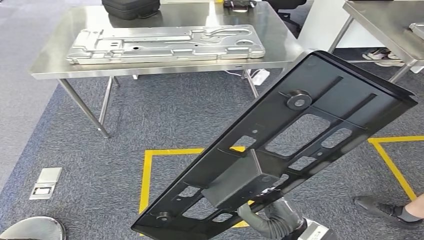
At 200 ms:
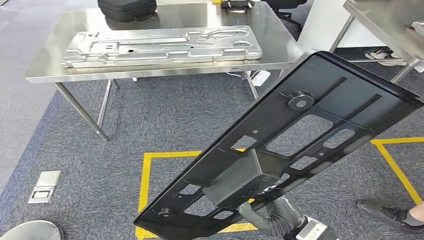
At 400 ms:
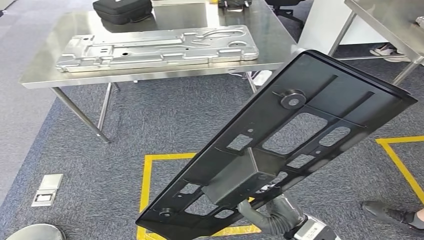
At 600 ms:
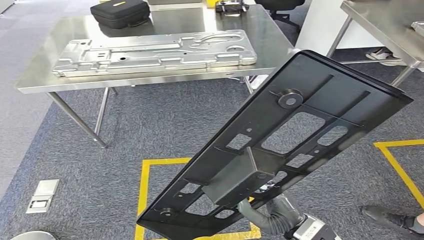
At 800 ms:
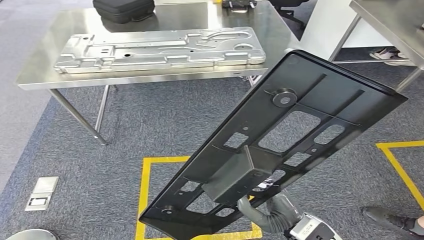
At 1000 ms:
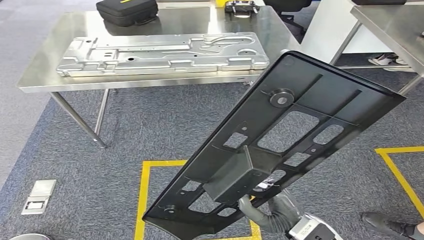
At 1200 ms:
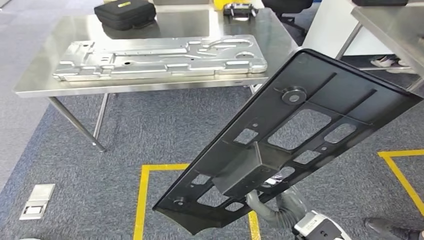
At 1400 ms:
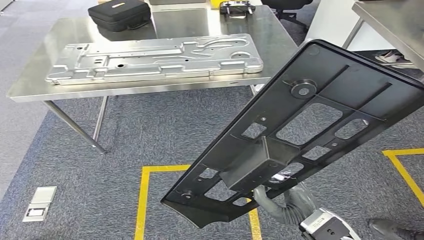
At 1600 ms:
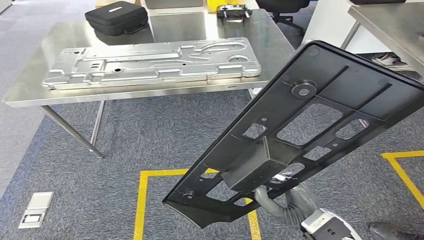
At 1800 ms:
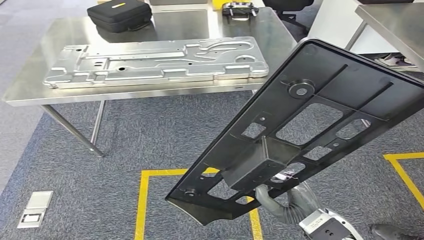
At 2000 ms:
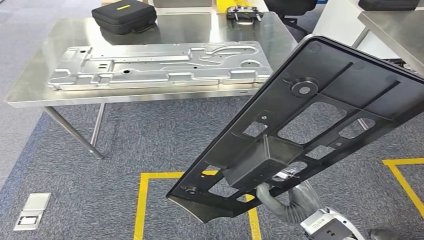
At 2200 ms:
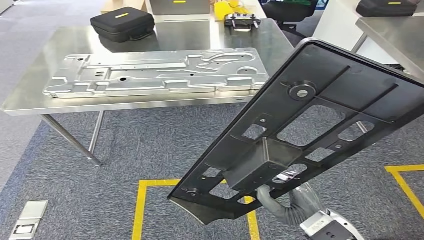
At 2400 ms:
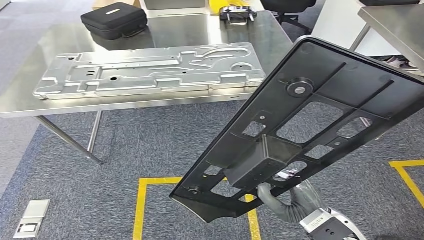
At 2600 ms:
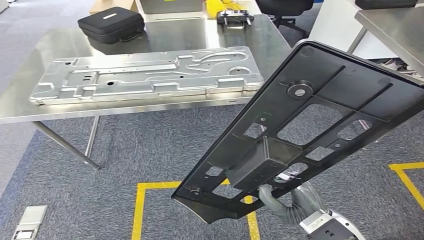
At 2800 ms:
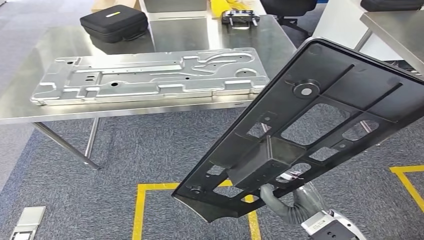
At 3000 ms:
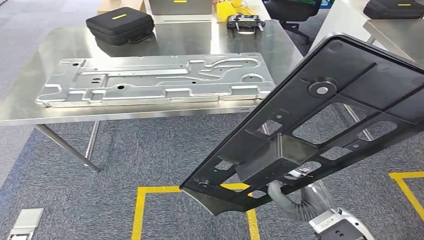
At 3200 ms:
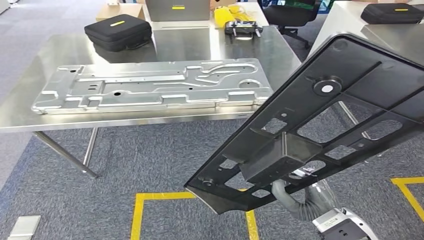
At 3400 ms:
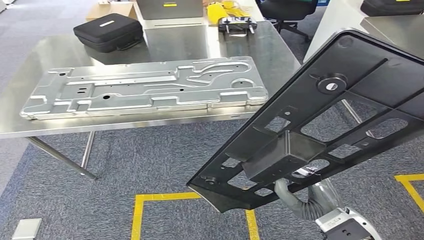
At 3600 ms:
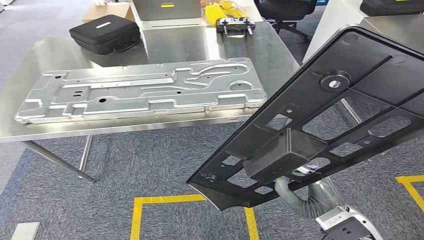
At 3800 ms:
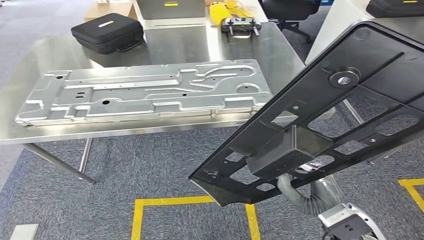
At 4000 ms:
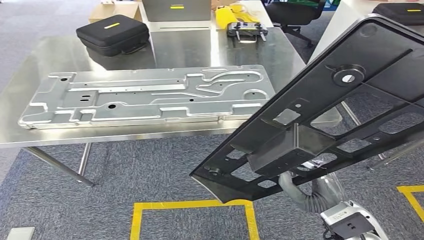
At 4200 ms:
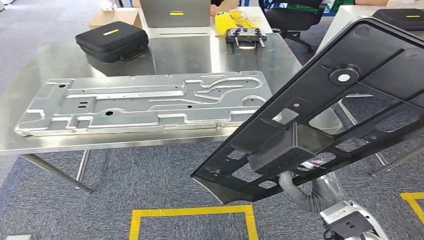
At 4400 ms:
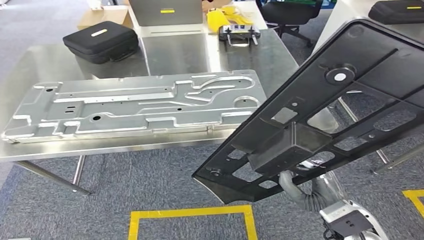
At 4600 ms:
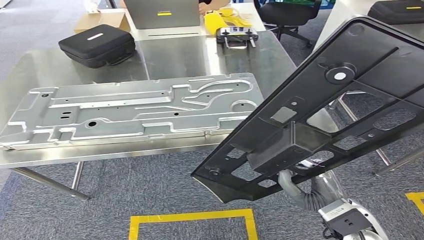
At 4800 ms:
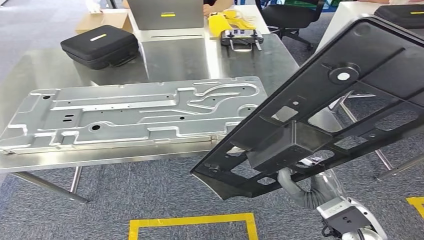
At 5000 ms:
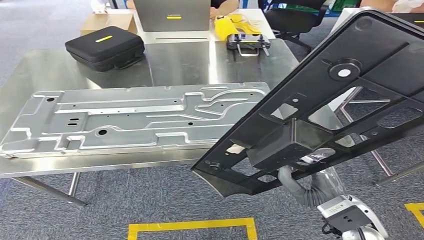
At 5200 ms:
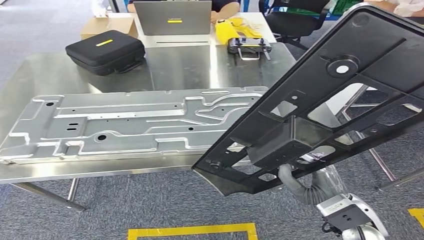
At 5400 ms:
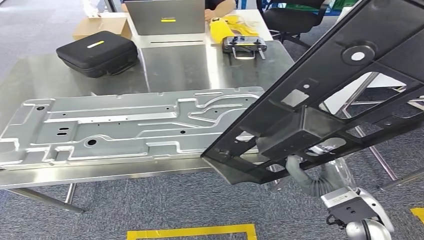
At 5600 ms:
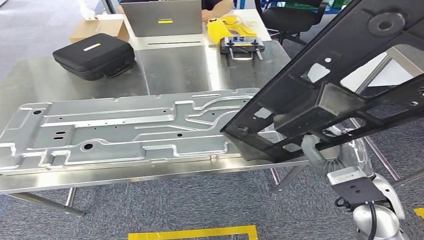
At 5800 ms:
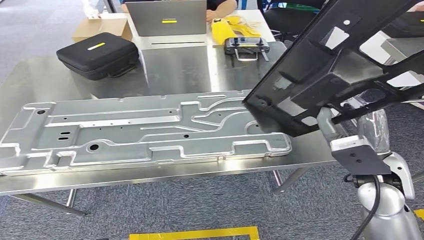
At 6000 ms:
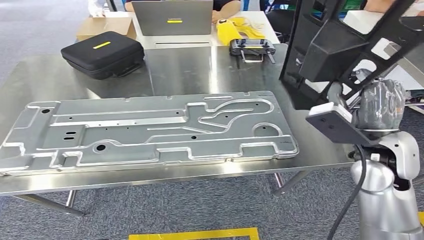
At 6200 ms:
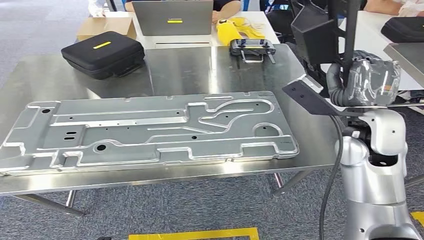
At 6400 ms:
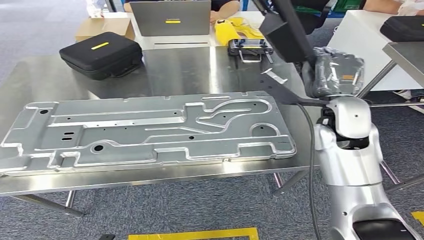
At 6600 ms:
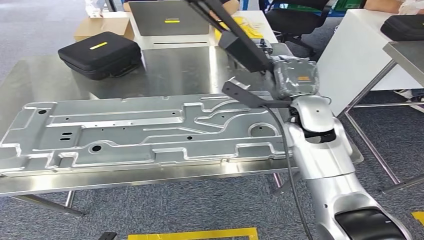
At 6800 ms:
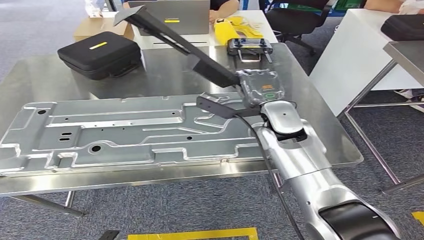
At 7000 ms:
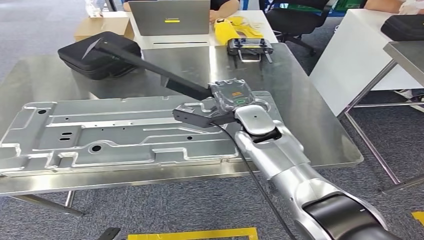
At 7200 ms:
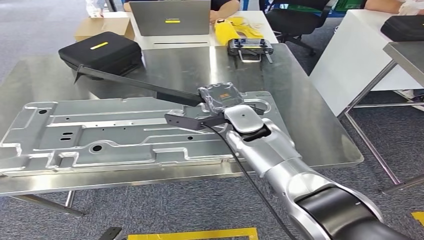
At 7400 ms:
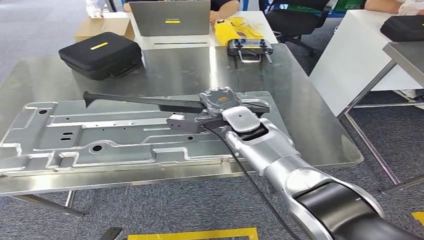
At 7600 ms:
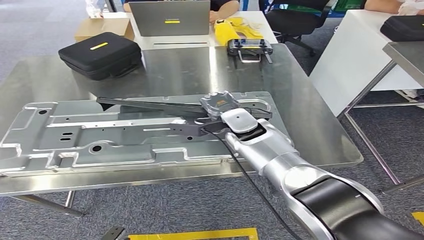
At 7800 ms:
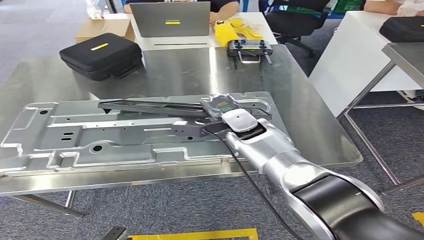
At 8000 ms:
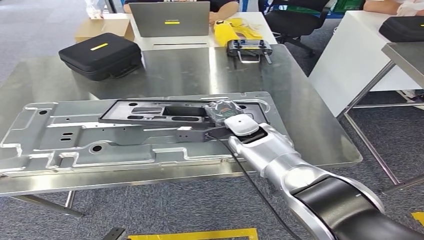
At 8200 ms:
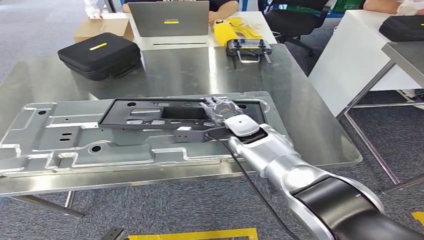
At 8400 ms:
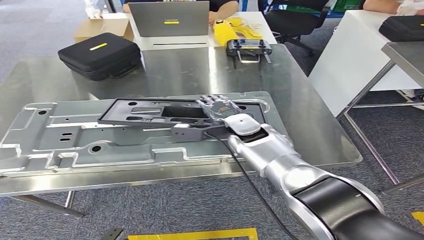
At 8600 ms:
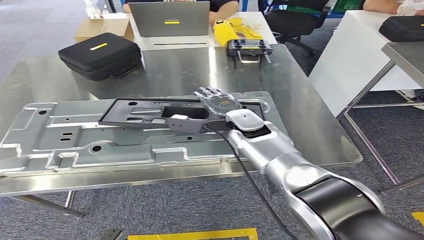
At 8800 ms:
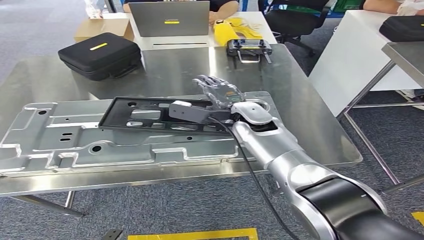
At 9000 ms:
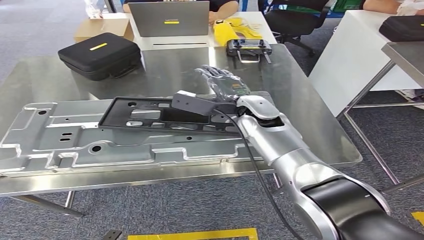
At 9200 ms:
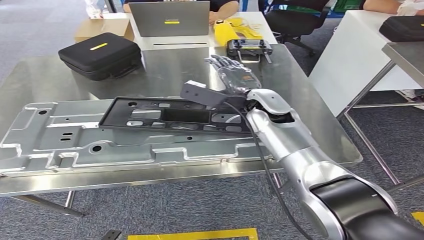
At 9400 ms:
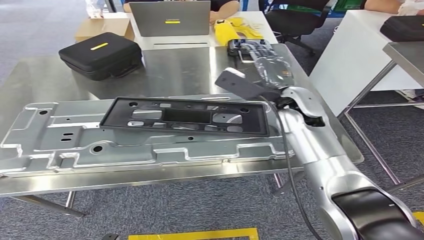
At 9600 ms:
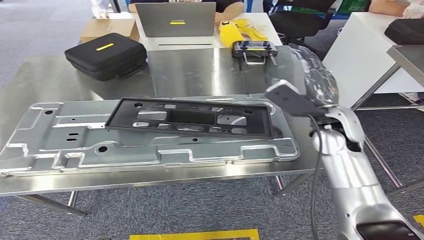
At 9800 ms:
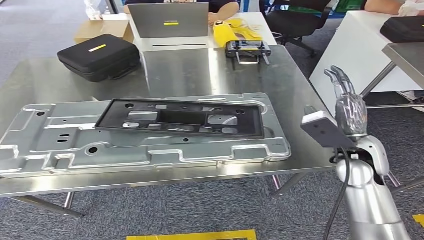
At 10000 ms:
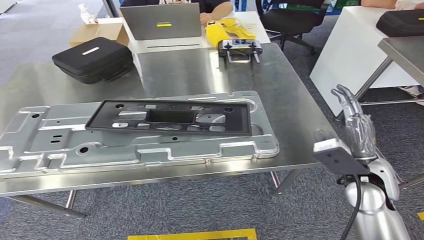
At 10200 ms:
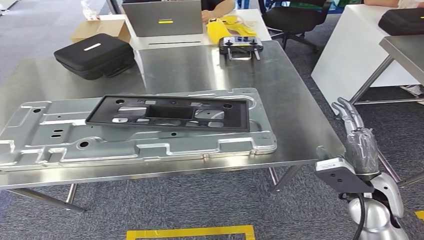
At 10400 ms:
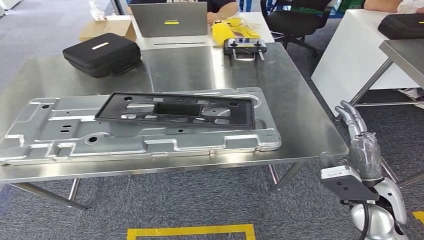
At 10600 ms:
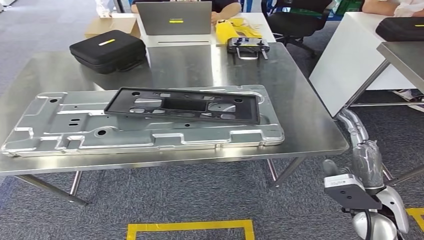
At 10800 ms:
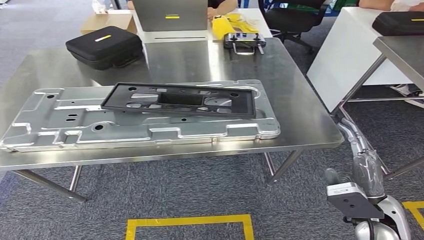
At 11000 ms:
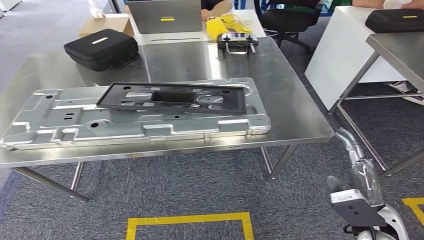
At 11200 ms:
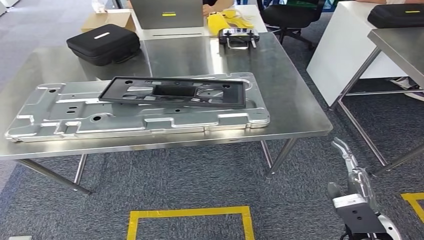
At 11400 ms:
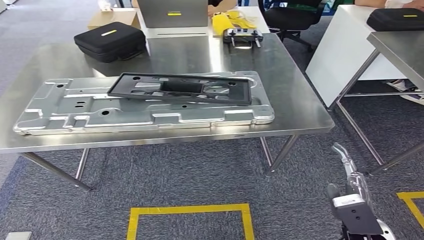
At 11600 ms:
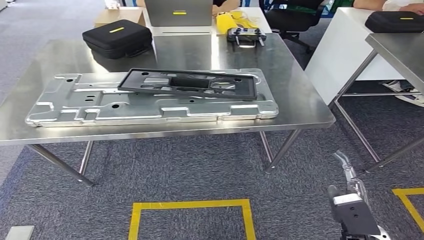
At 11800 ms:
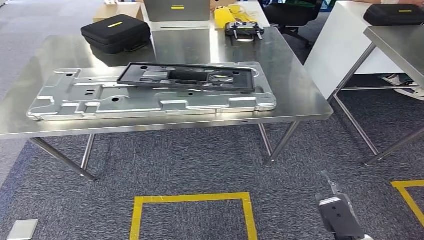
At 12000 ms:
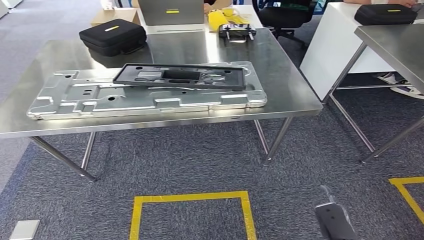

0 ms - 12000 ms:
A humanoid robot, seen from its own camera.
Step, 0 ms - 4800 ms: Move the large material to the workbench.
Step, 5000 ms - 8400 ms: Insert the large material into the corresponding slot on the workbench.

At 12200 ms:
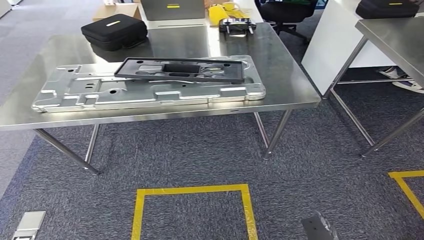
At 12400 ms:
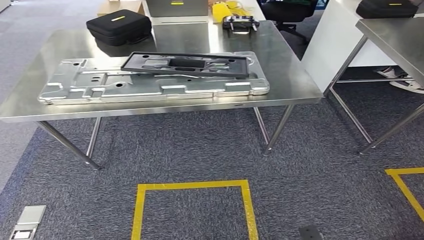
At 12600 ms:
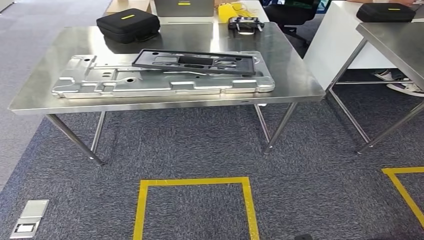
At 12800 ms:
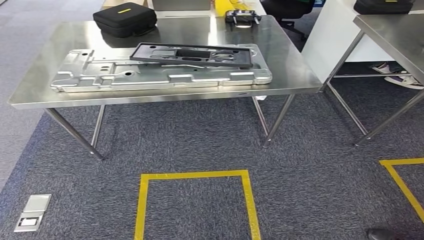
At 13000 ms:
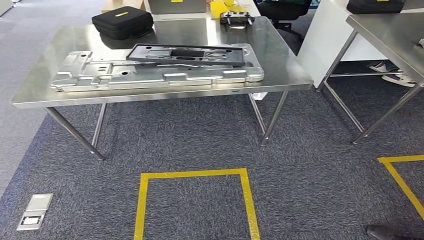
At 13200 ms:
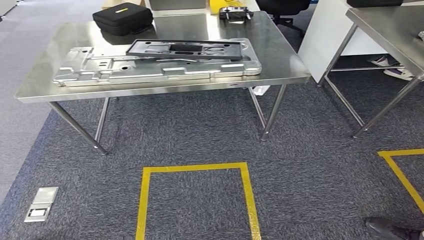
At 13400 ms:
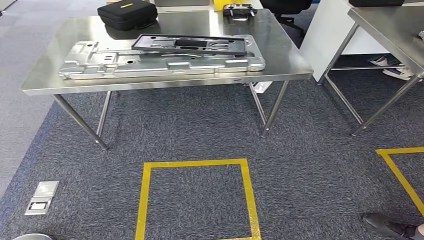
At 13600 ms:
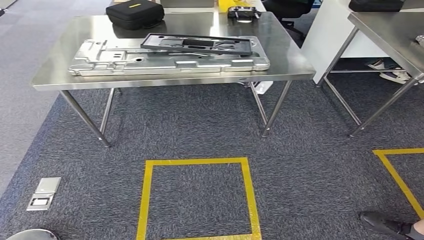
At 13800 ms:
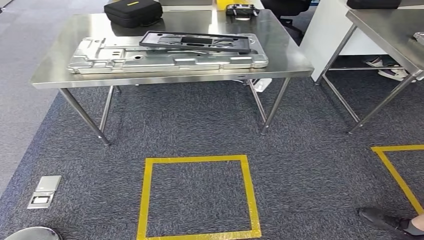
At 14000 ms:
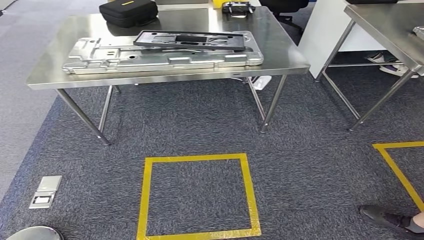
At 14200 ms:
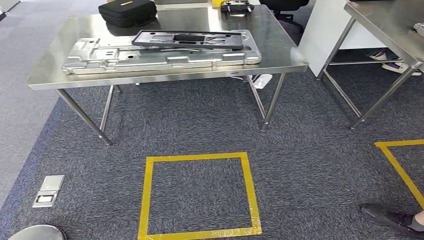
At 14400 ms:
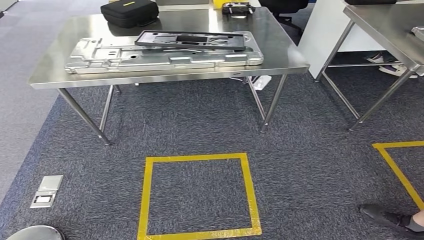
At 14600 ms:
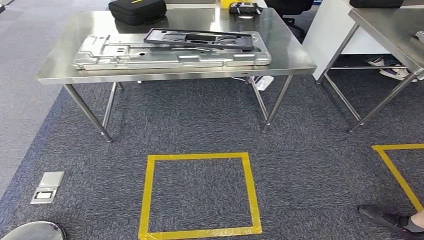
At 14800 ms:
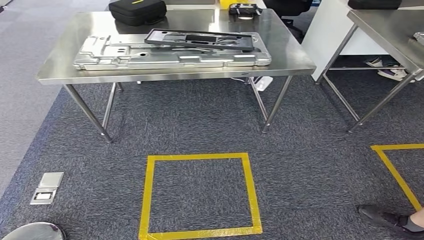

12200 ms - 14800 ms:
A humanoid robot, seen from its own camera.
Step, 12200 ms - 14800 ms: Move to the initial position of the shelf.
